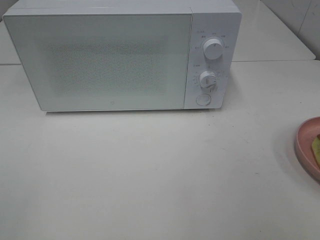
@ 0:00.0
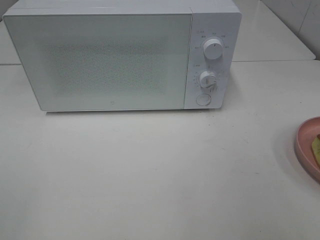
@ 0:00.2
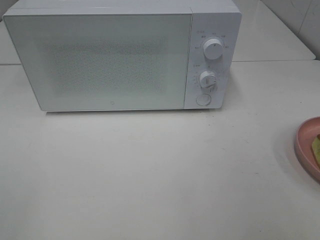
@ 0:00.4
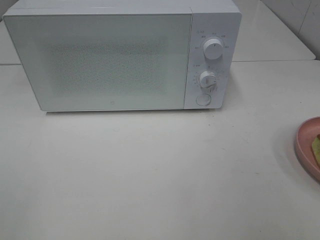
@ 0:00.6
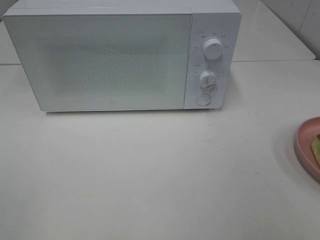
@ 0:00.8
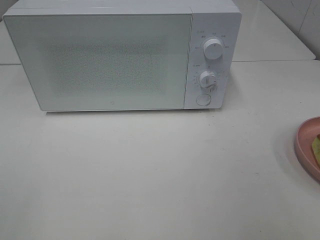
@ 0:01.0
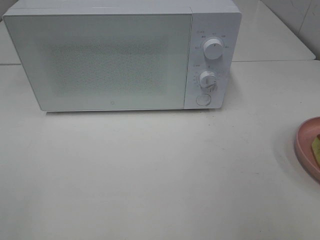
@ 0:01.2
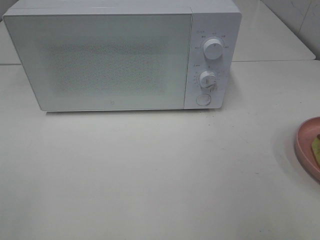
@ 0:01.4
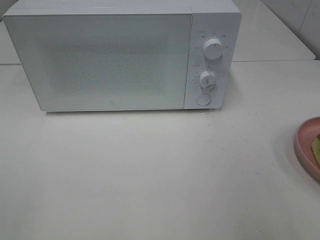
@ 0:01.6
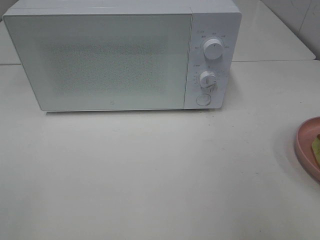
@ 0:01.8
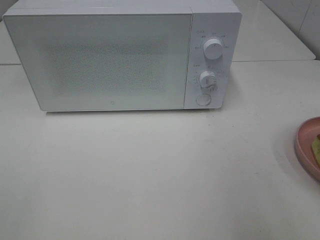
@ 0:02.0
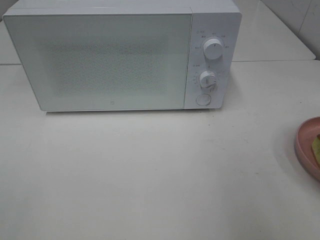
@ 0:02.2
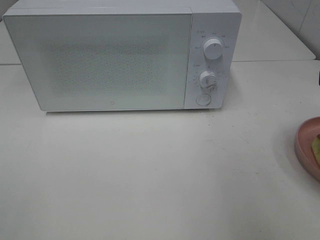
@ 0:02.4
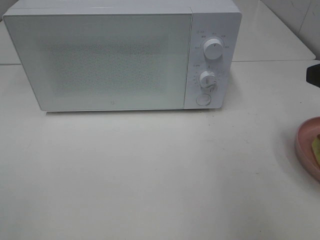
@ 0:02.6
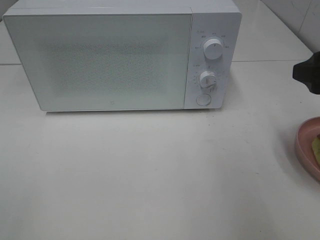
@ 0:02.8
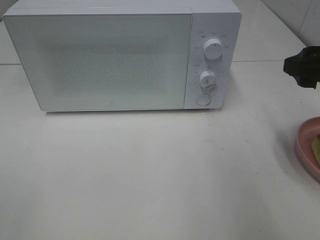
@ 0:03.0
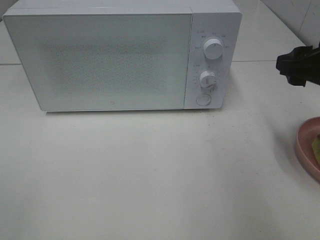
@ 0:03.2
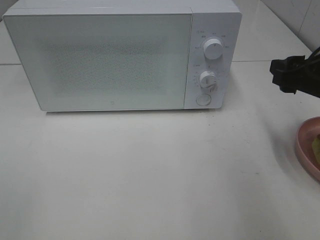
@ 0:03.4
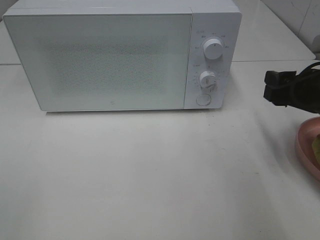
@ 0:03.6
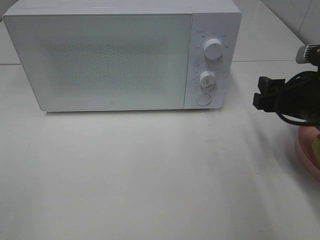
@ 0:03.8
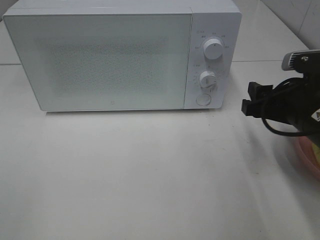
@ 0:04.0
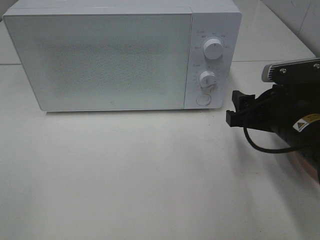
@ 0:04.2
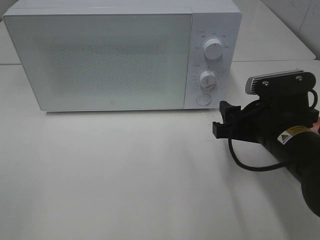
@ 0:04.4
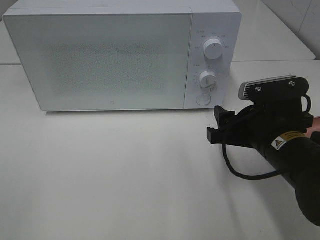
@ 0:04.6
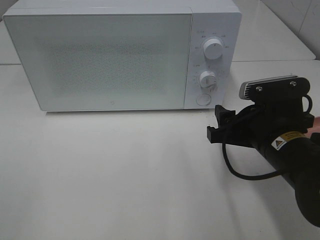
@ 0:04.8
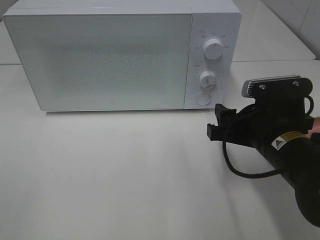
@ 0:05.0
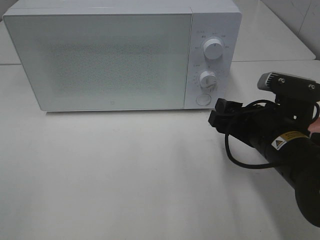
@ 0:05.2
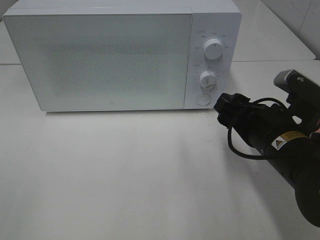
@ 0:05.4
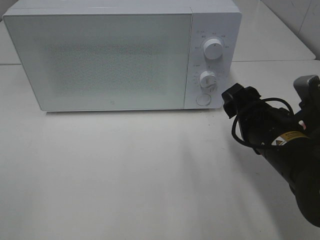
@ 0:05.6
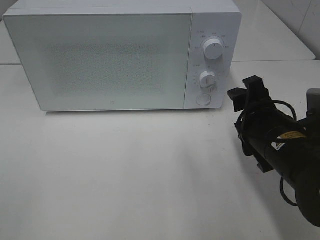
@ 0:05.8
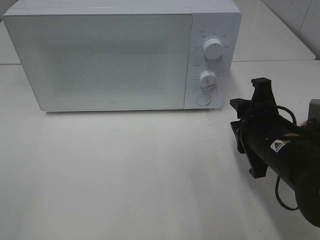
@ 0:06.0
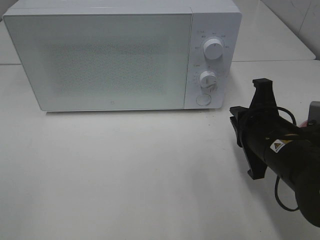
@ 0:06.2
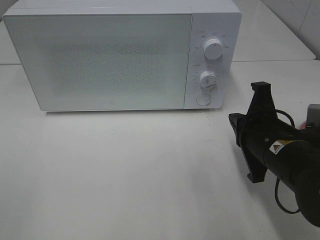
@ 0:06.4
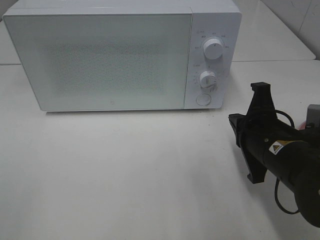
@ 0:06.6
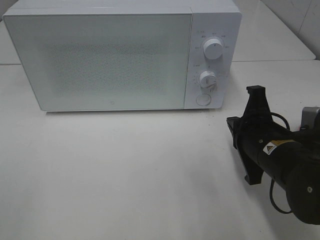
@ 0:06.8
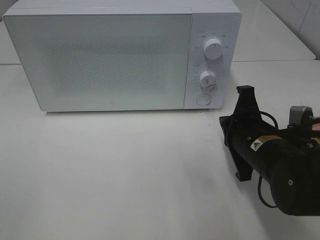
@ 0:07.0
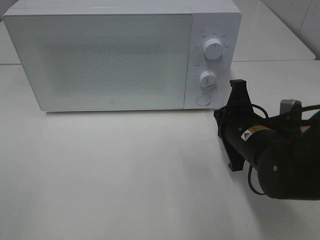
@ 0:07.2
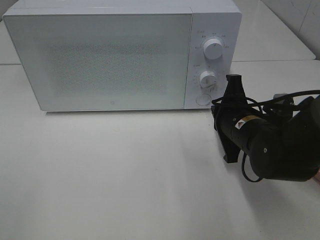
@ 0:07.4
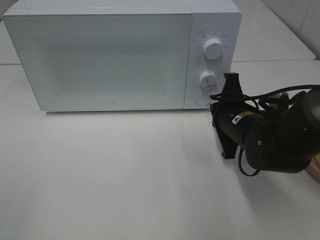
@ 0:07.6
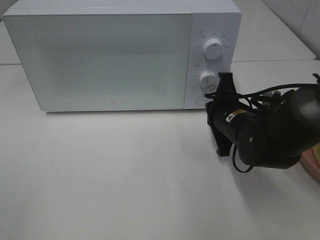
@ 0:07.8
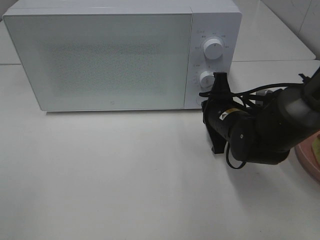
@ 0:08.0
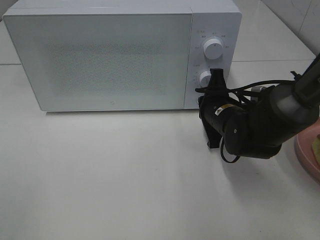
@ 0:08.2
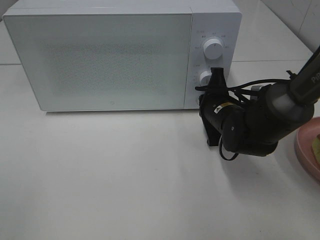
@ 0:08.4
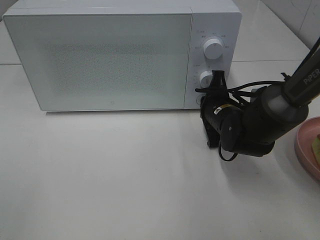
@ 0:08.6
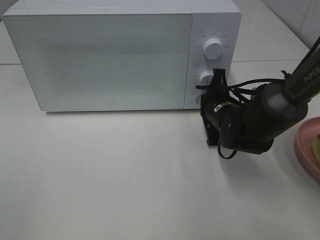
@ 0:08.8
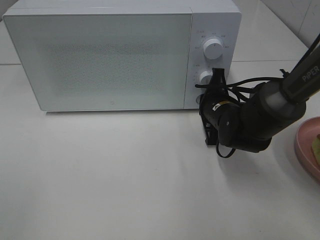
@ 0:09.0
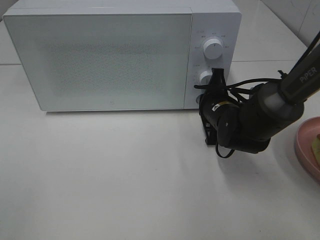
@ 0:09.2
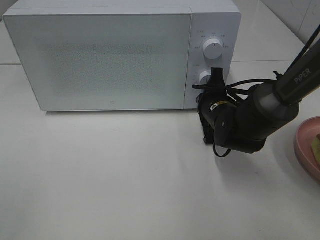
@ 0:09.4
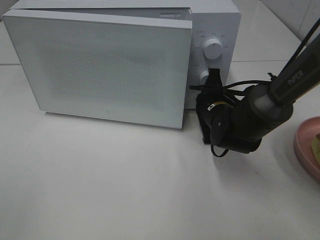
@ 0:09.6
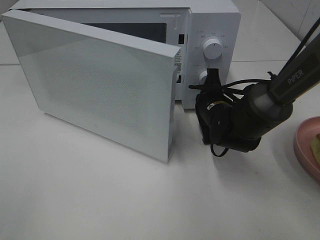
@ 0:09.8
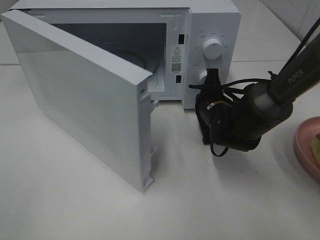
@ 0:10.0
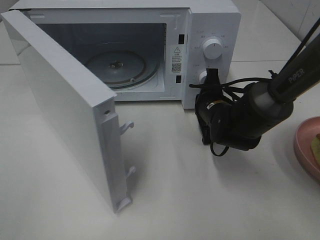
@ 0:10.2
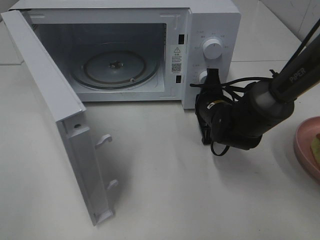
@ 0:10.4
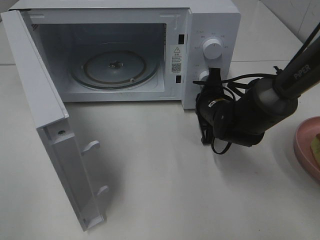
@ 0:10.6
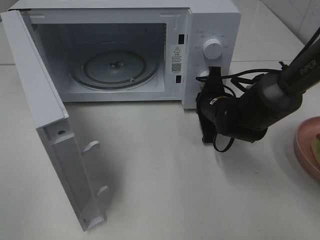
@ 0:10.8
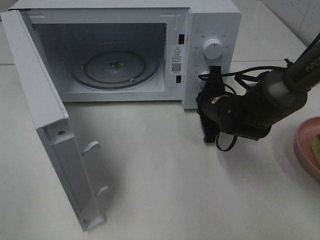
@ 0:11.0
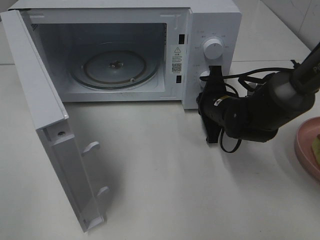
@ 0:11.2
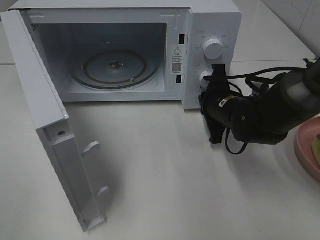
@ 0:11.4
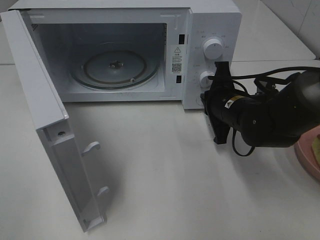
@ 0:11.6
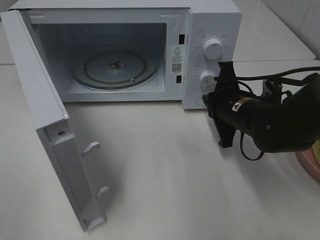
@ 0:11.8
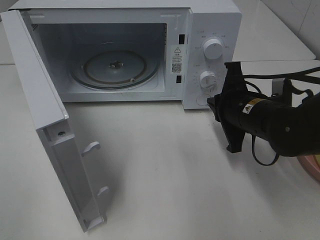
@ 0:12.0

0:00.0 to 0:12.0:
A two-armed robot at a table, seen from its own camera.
Task of the whole recording: Heat Sandwich.
Step, 0:00.0 to 0:11.6: Right hand: press the switch.
0:01.6 to 0:03.0: The right gripper goes roughly 15 cm forward.
0:03.0 to 0:04.4: The right gripper travels downward and to the left by about 15 cm.
0:06.0 to 0:07.6: The right gripper moves forward, approximately 10 cm, and closes its fingers.
0:07.6 to 0:09.0: The right gripper goes approximately 5 cm forward.
0:10.4 to 0:12.0: The right gripper goes some 10 cm backward and upward.

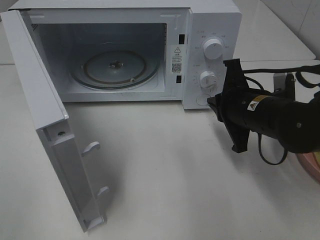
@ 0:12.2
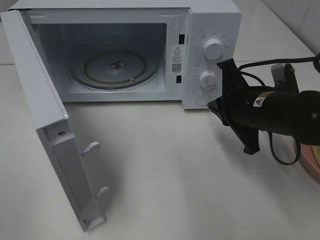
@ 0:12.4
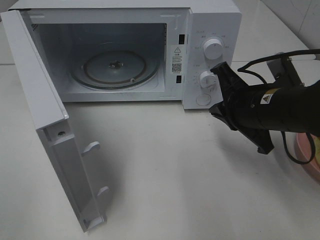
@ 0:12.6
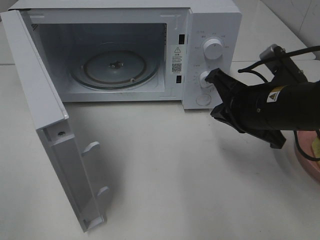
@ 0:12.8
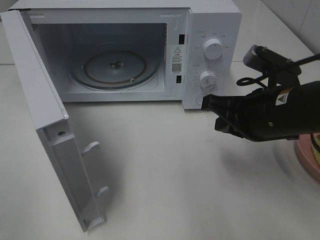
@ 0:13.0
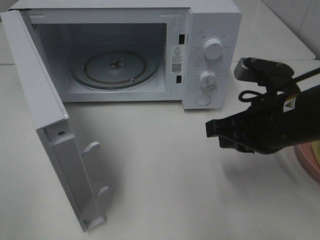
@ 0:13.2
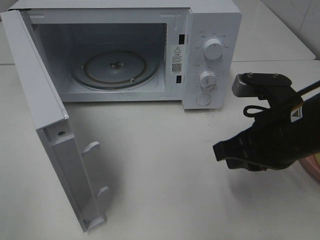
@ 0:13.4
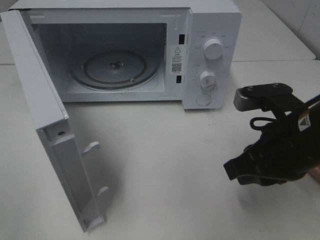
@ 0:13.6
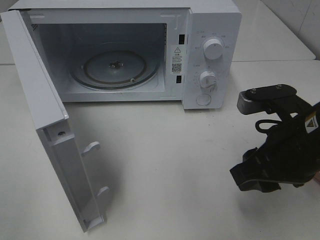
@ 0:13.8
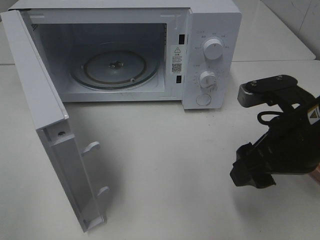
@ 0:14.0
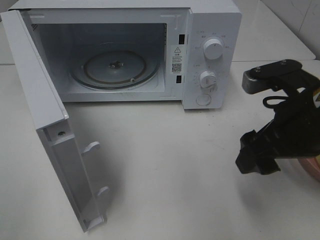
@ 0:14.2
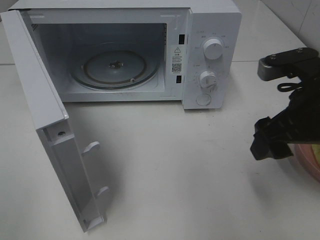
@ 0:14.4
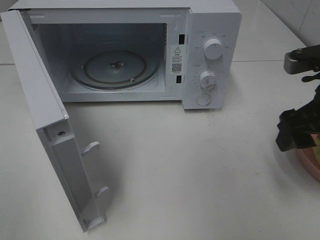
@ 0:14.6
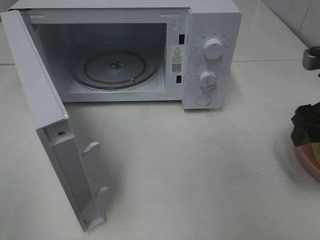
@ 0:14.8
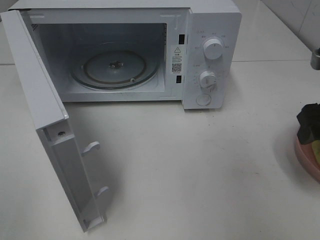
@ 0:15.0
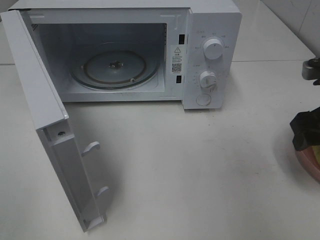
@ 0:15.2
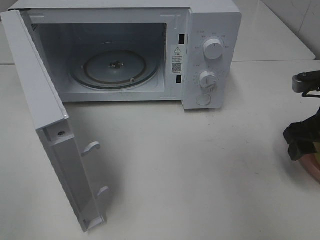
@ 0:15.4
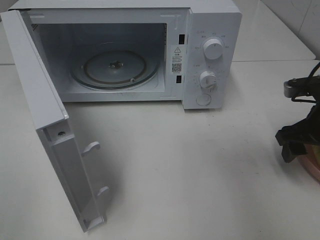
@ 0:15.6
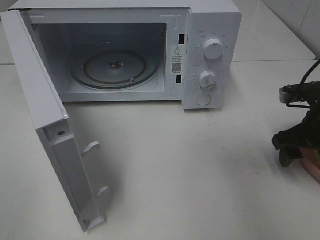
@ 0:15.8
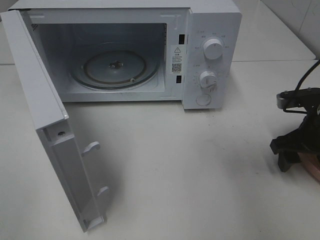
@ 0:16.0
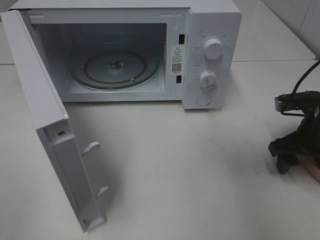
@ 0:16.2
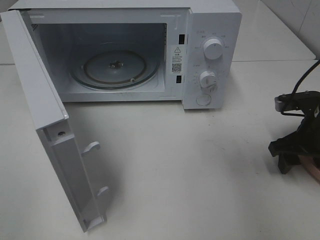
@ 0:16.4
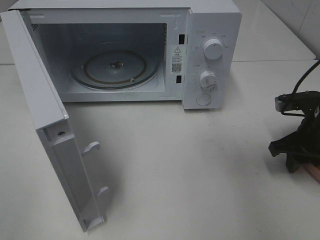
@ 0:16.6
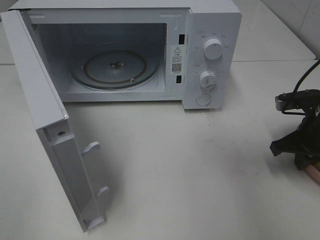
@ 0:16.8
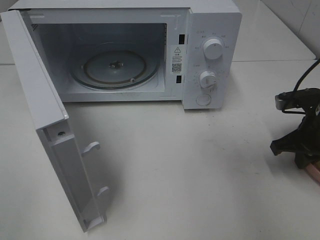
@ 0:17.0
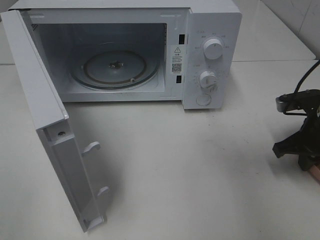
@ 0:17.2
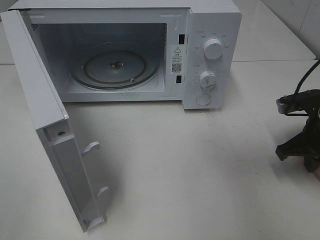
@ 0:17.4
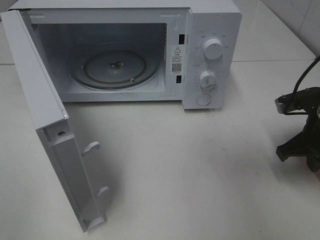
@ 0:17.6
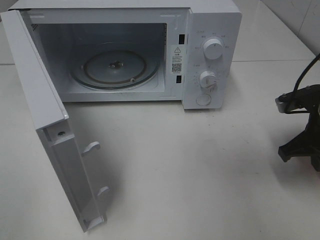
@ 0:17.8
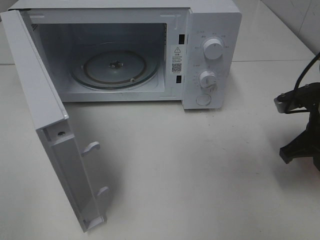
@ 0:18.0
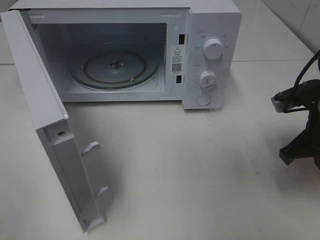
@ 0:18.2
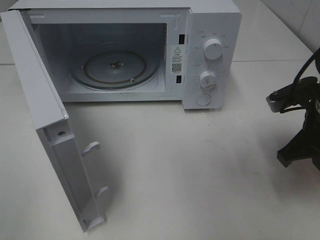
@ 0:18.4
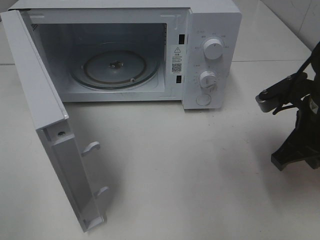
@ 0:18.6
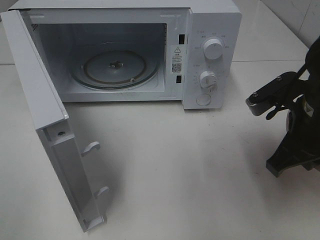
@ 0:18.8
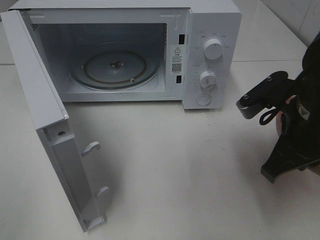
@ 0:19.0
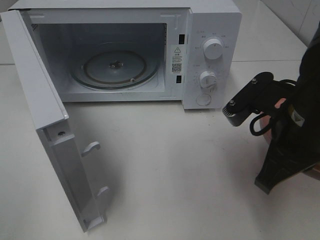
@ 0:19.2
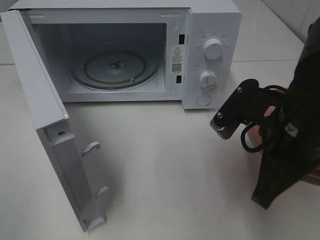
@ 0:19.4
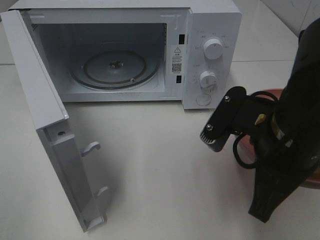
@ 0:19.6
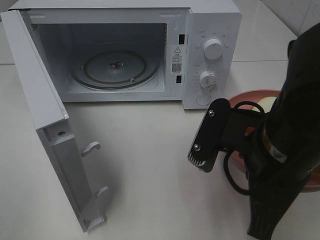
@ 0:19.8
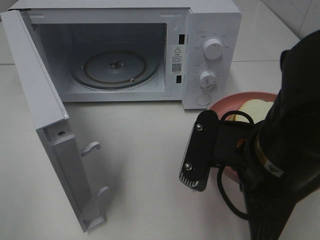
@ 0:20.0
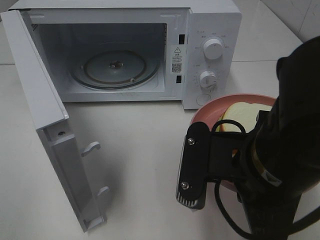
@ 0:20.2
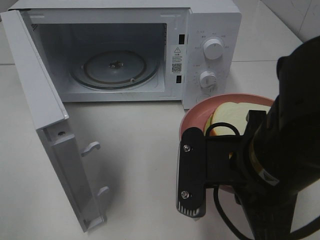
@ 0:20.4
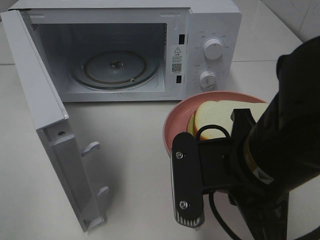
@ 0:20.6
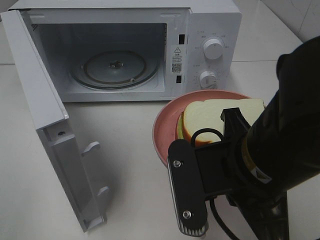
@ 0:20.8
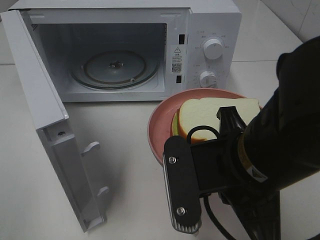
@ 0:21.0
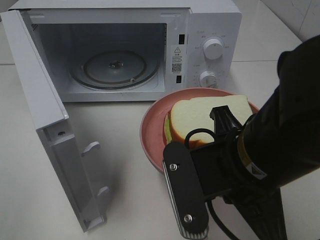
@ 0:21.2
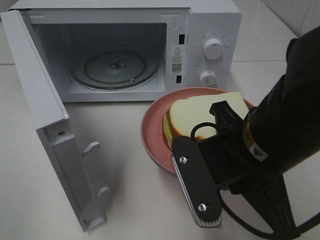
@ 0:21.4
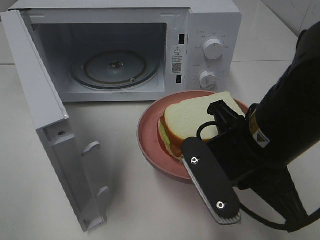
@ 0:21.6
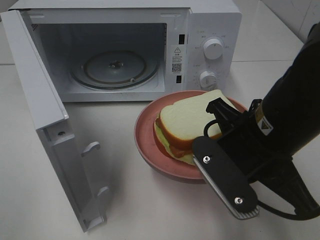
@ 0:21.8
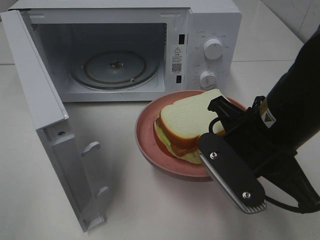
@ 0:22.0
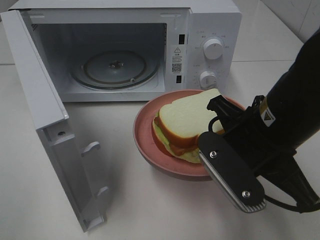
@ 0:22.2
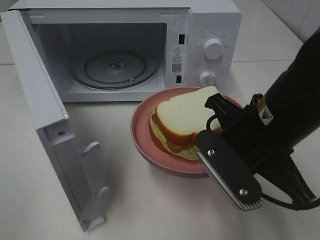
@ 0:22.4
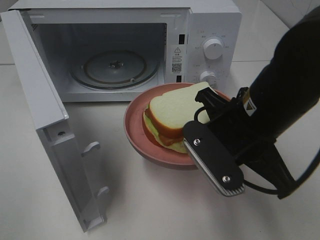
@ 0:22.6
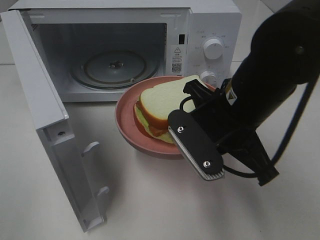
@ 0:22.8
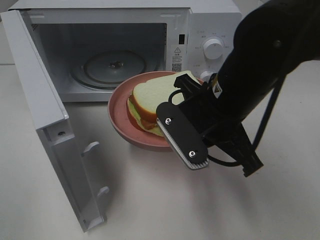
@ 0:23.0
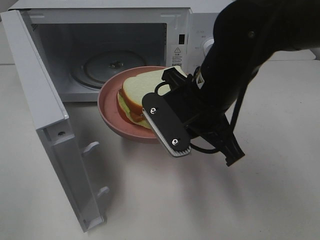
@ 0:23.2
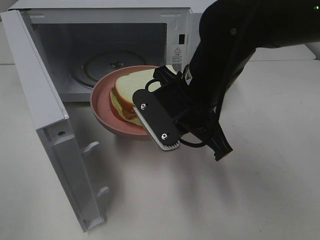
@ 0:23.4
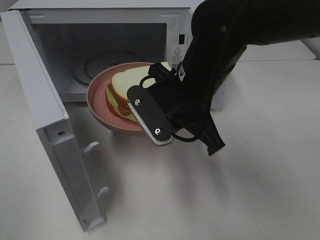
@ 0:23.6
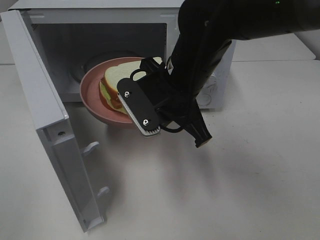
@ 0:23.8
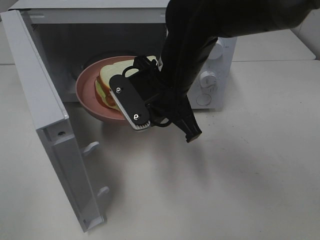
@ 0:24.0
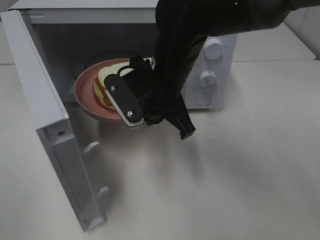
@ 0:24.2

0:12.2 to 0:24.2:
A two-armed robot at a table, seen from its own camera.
Task of the whole recording: Heat Sandwich.
Step, 0:12.2 to 0:16.8: Right hand: grab the plate with the sandwich.
0:12.2 to 0:13.8: The right gripper is displaced backward by roughly 10 cm, and opens.
0:13.8 to 0:15.2: The right gripper travels to the right and forward by roughly 10 cm, and opens.
0:15.2 to 0:16.6: The right gripper shifts about 10 cm downward, and closes its fingers.
0:16.6 to 0:18.2: The right gripper changes place by about 5 cm, and closes up.
0:18.2 to 0:19.8: The right gripper is displaced to the left and backward by some 15 cm.
0:21.2 to 0:22.6: The right gripper moves forward, some 5 cm.
0:22.6 to 0:24.2: The right gripper is displaced forward and to the left by roughly 15 cm.
